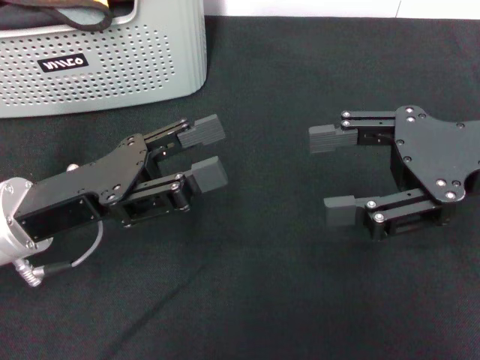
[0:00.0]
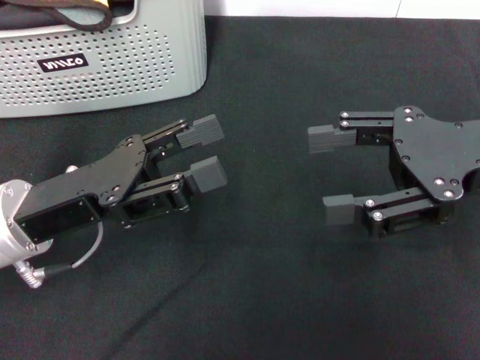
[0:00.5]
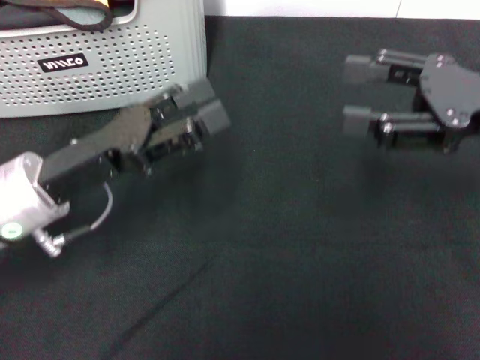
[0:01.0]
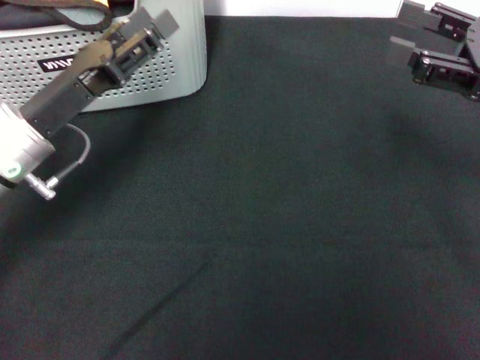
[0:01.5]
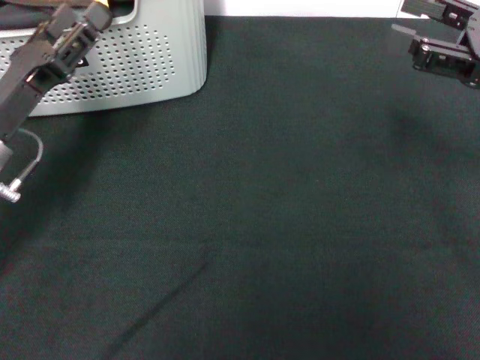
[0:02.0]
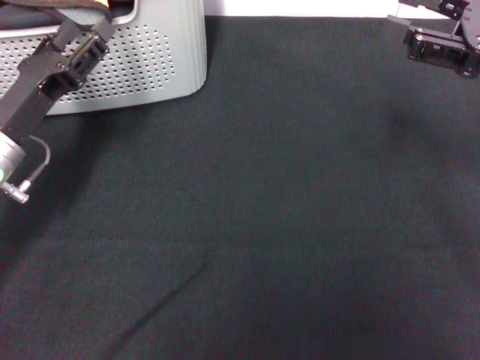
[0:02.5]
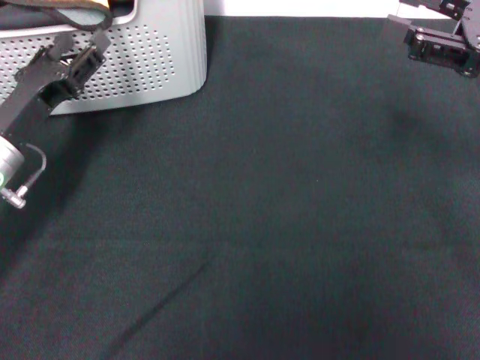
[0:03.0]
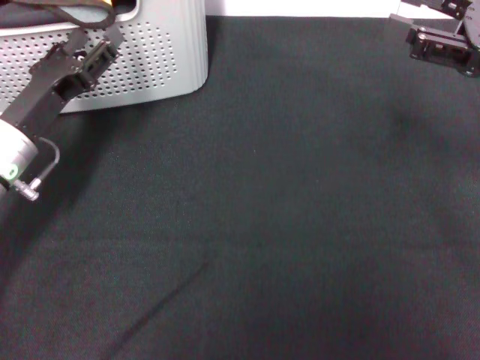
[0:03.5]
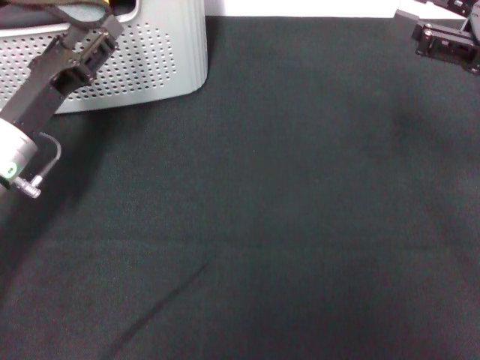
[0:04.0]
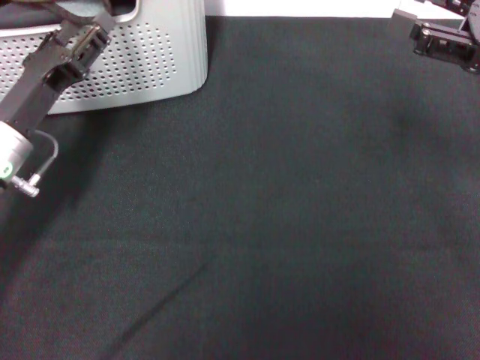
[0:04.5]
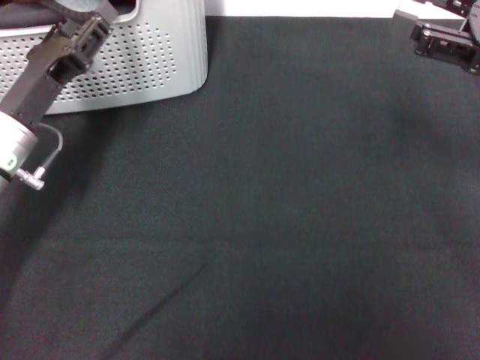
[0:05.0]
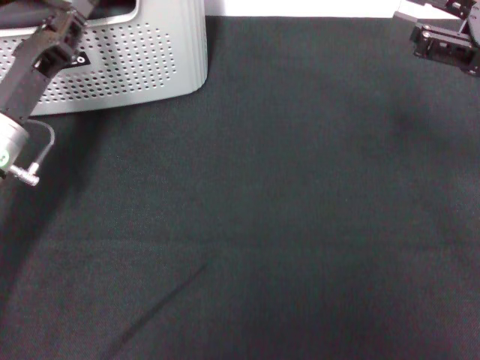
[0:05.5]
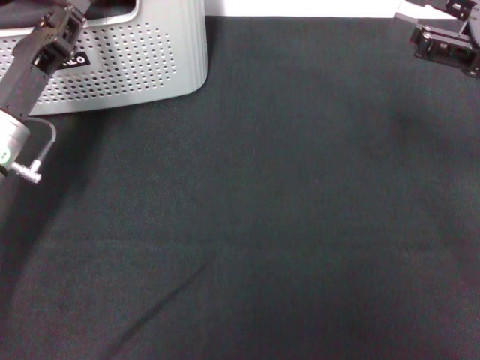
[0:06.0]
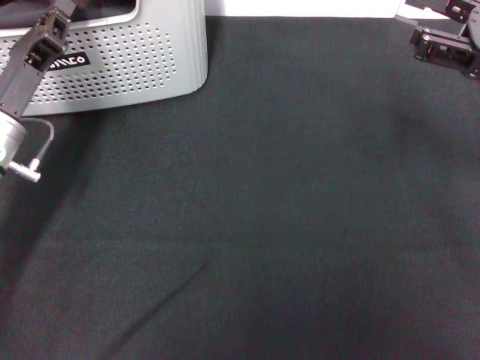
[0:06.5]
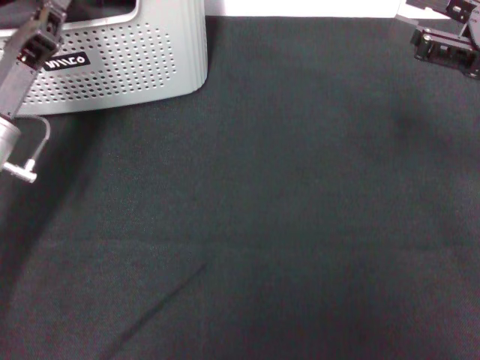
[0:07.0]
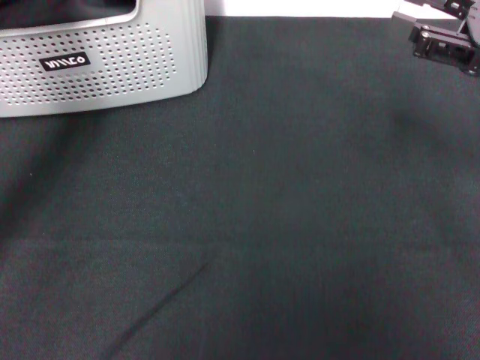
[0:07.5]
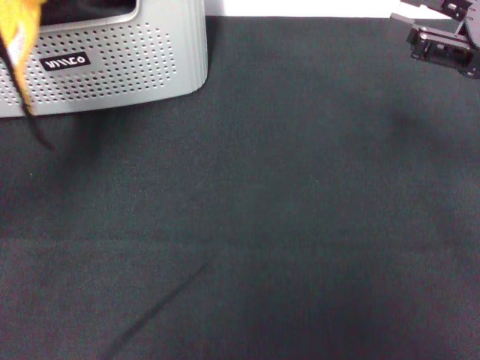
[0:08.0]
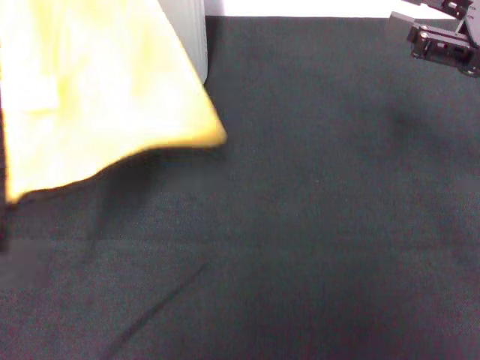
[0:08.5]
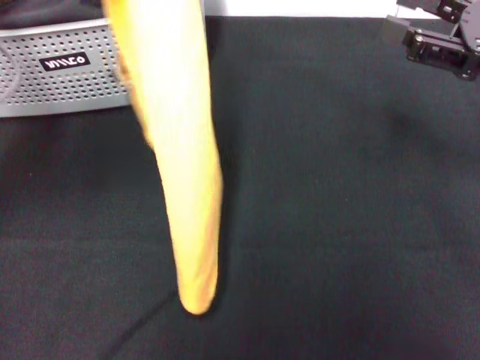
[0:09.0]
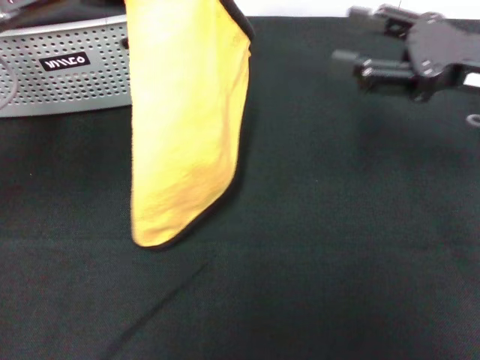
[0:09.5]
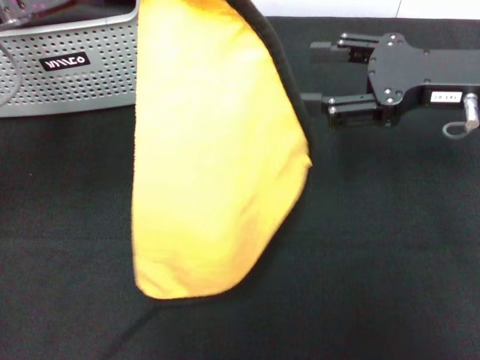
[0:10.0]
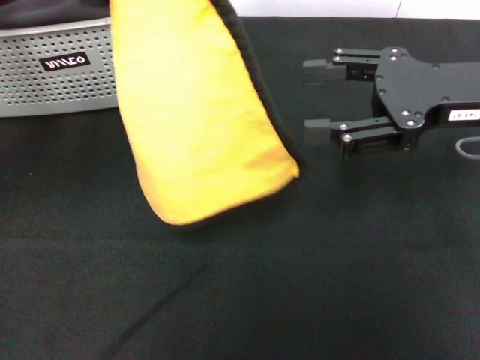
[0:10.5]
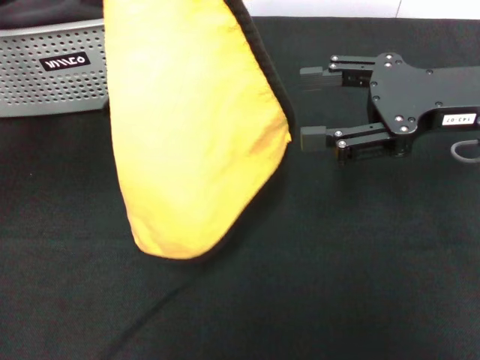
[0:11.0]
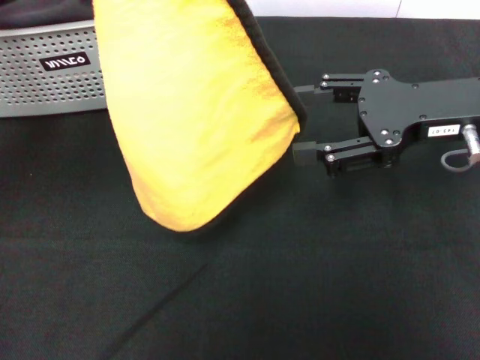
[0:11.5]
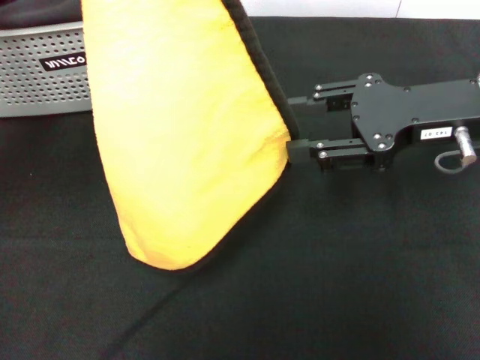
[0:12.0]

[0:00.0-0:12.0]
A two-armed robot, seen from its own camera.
Task of the whole recording: pick up the towel from the storage box and lay it flat on the black tablecloth.
Step, 0:00.0 to 0:06.5: Pick up a towel with the left gripper.
0:00.0 to 0:02.0: The left gripper shifts by roughly 5 cm. Meanwhile the right gripper shifts about 5 cm to the right.
0:02.0 to 0:04.0: There are only small adjustments of the grippers.
0:04.0 to 0:06.0: The left gripper closes.
0:06.0 to 0:08.0: The left gripper shifts about 10 cm upward and backward, and closes its fingers.
0:08.0 to 0:10.0: The right gripper shifts about 5 cm to the left; the left gripper is displaced upward by approximately 5 cm.

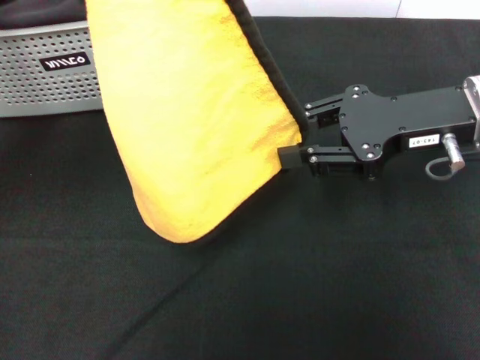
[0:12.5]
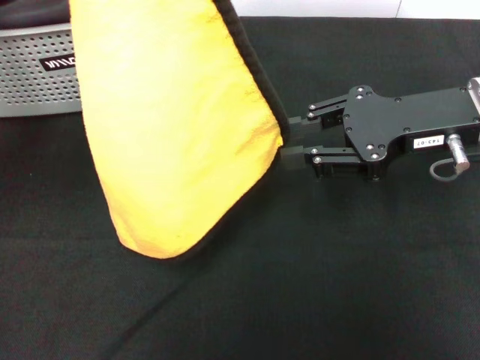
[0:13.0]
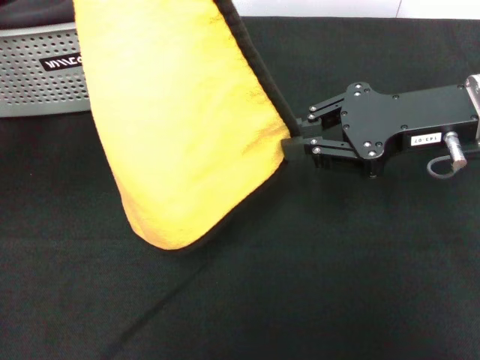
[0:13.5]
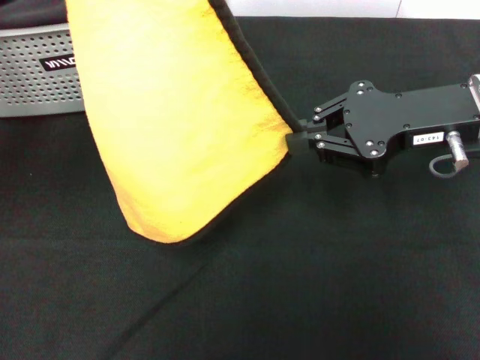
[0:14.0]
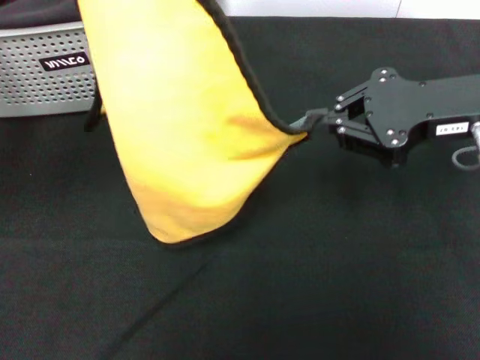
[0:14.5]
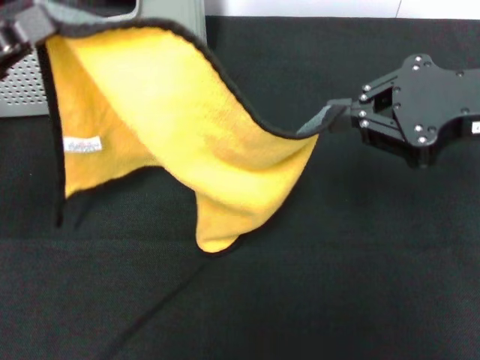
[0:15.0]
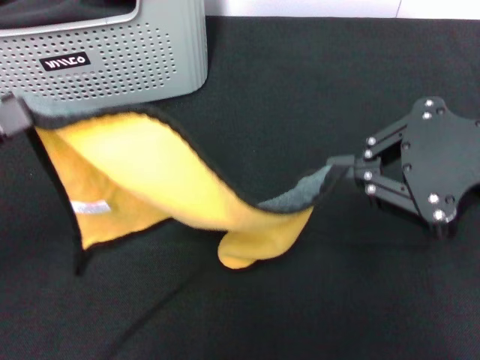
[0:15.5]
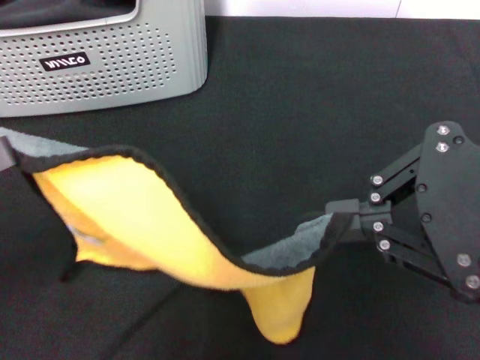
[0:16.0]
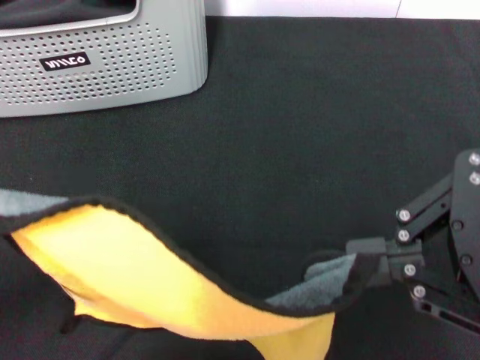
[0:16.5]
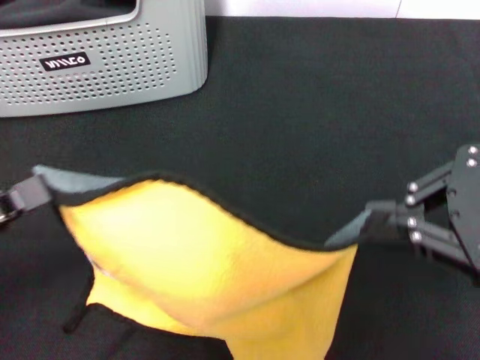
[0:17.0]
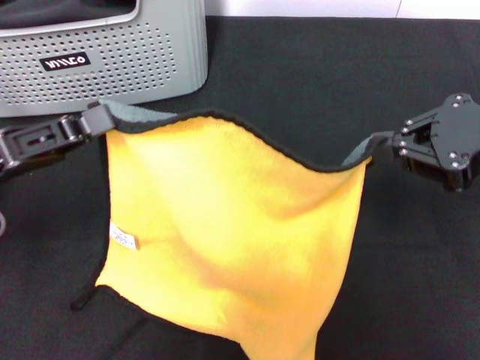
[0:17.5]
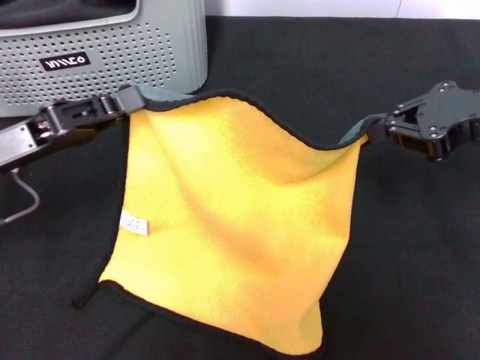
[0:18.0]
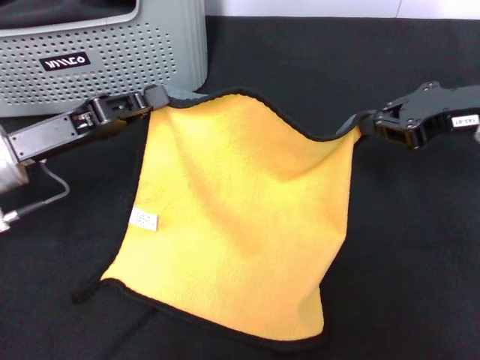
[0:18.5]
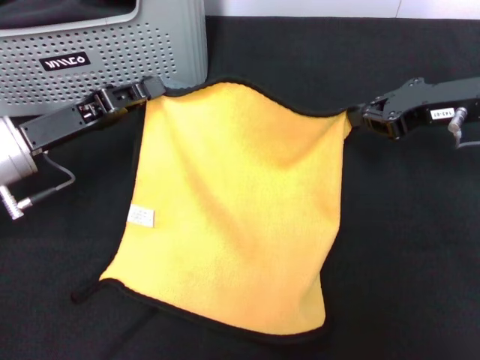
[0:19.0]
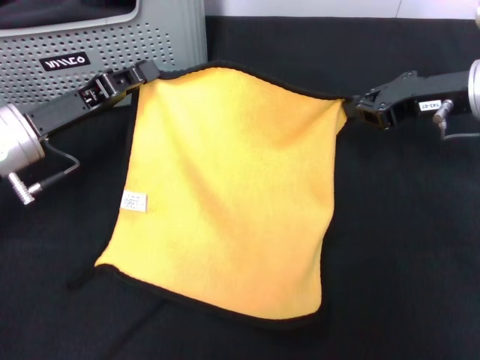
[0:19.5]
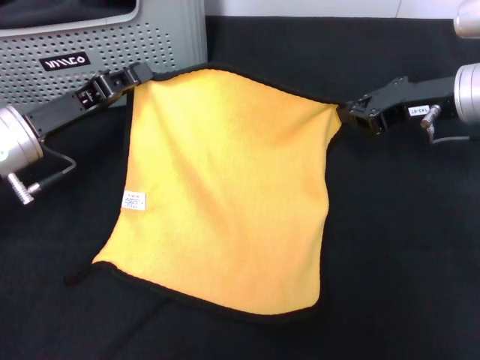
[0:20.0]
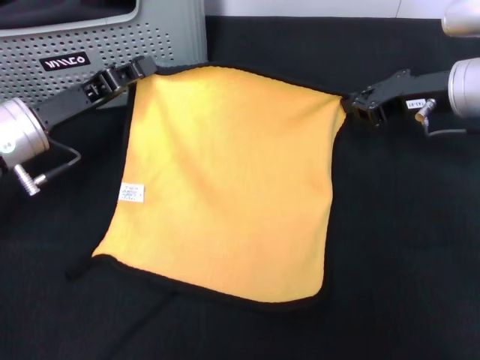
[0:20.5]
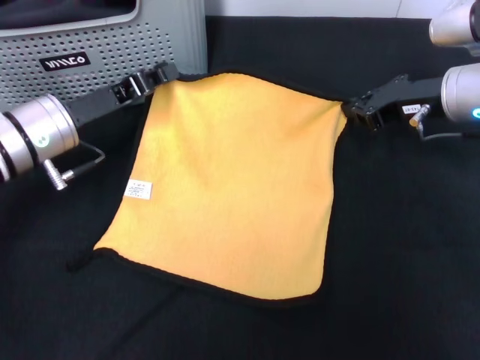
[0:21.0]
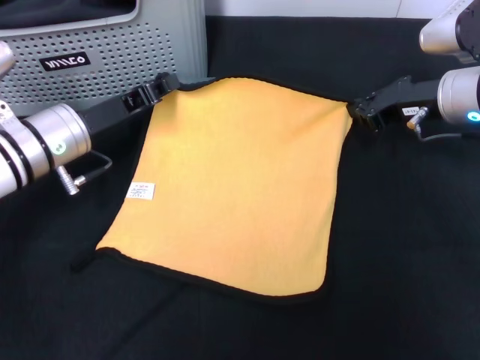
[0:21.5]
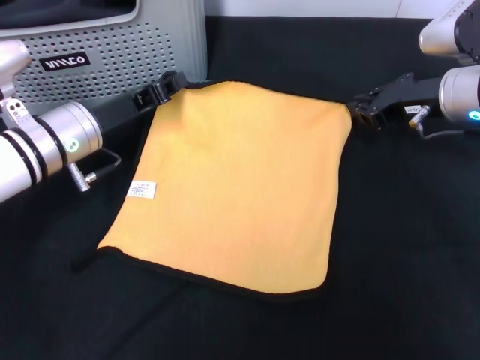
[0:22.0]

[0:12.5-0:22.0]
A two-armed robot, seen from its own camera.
Task of the whole recording: pick up the towel from the storage box and lay it flat on the black tablecloth.
Step, 0:14.5 to 0:22.0: Spread the towel flat with the right gripper.
0:12.5 to 0:14.5: The right gripper closes its fingers.
0:14.5 to 0:16.5: The left gripper moves backward, roughly 15 cm. Meanwhile the right gripper moves backward and upward, about 15 cm.
0:16.5 to 0:18.0: The right gripper heads forward and downward, covering approximately 15 cm. The left gripper goes approximately 15 cm forward and to the right.
0:18.0 to 0:20.0: The left gripper travels forward by some 5 cm; the right gripper heads forward and downward, covering some 10 cm.
0:20.0 to 0:22.0: The left gripper ends up roughly 5 cm from where it was.

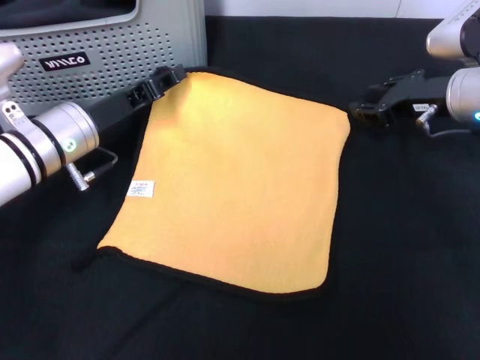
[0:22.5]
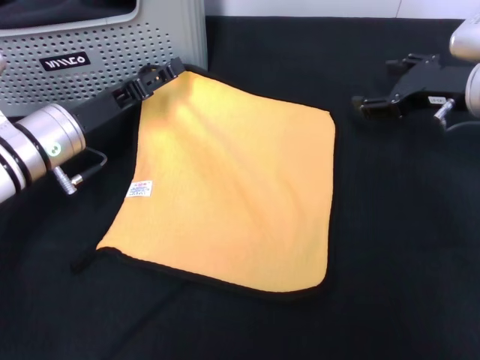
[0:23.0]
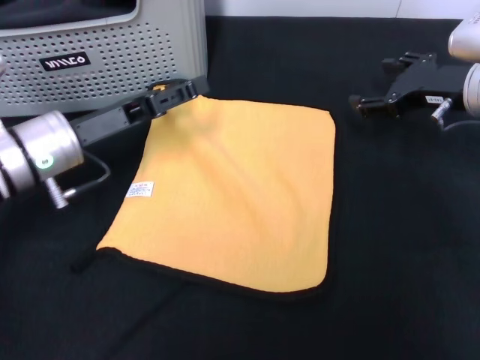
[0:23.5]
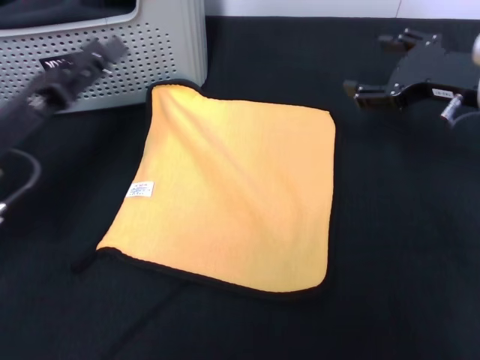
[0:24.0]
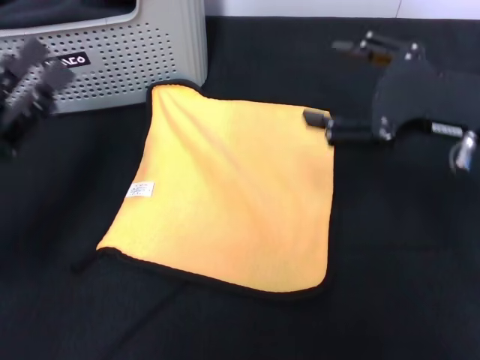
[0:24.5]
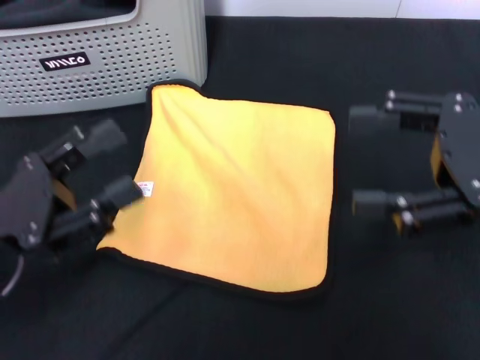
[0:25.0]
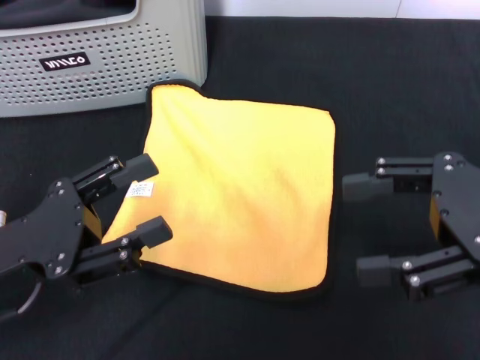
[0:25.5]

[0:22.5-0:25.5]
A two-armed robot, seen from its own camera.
Task of the whole recording: pick up the towel from the storage box and lay it flat on the black tablecloth.
0:22.5 to 0:24.0: The right gripper shifts some 5 cm backward, and opens, while the left gripper shifts some 10 cm backward and to the left, and opens up.
0:24.0 to 0:25.5: The right gripper shifts approximately 15 cm backward and upward. Meanwhile the left gripper goes roughly 10 cm backward.
